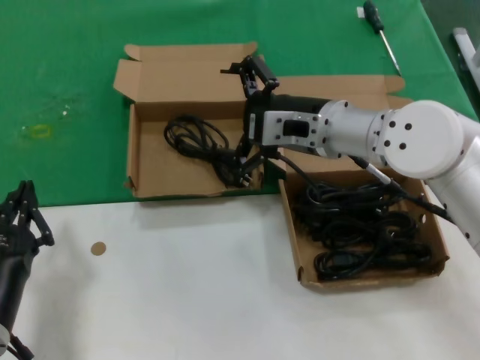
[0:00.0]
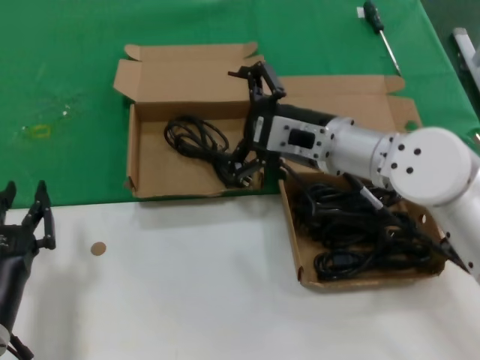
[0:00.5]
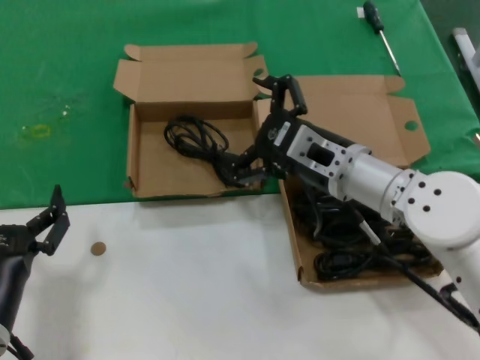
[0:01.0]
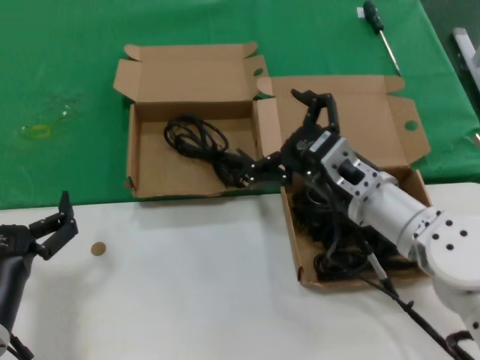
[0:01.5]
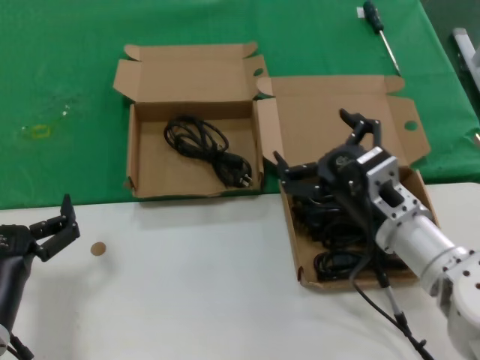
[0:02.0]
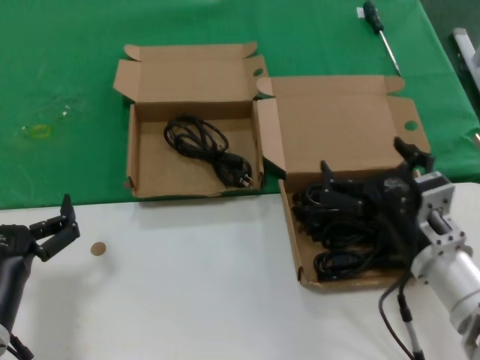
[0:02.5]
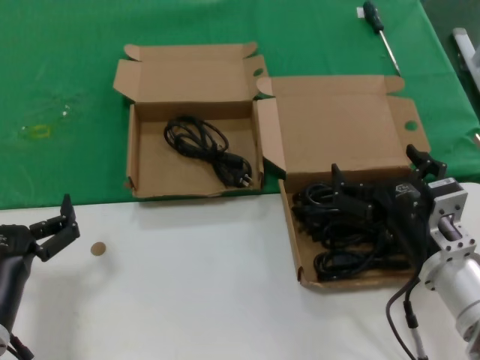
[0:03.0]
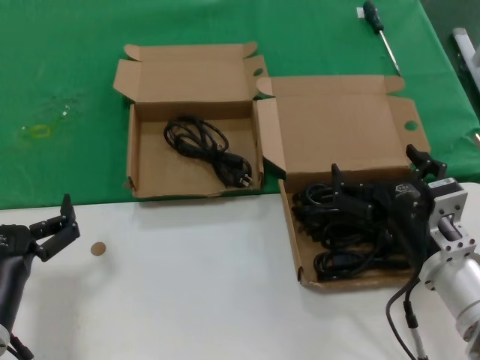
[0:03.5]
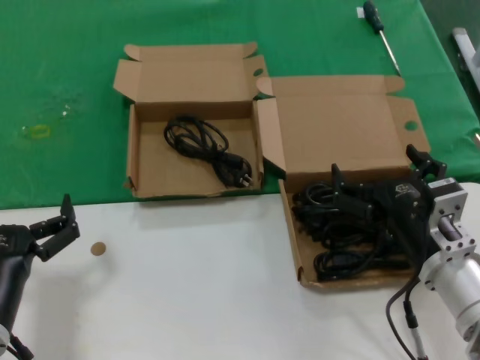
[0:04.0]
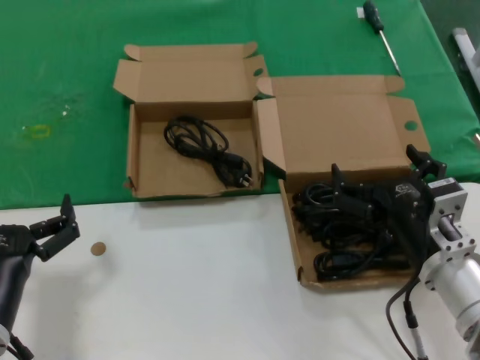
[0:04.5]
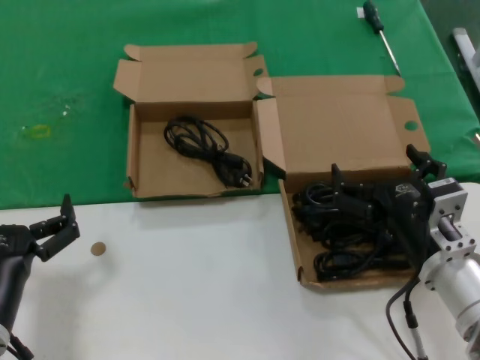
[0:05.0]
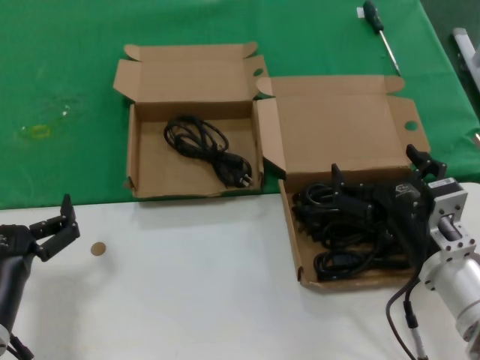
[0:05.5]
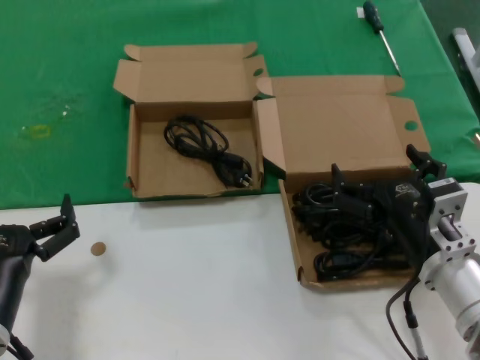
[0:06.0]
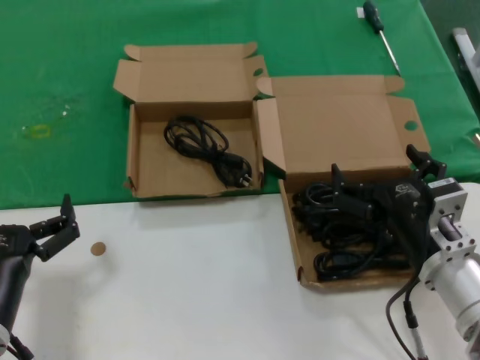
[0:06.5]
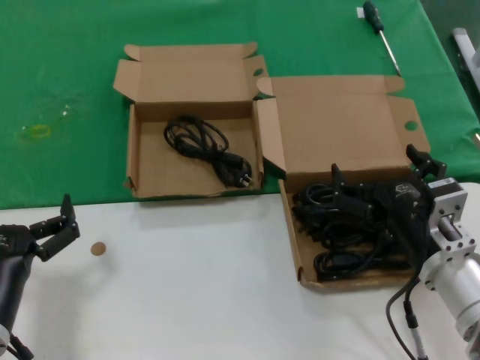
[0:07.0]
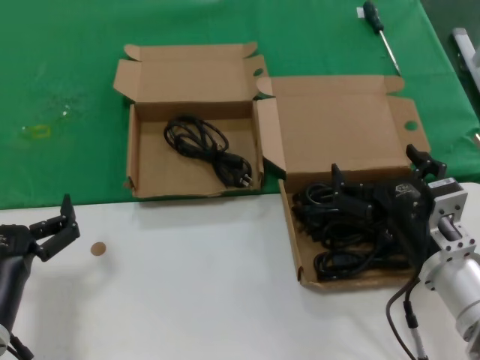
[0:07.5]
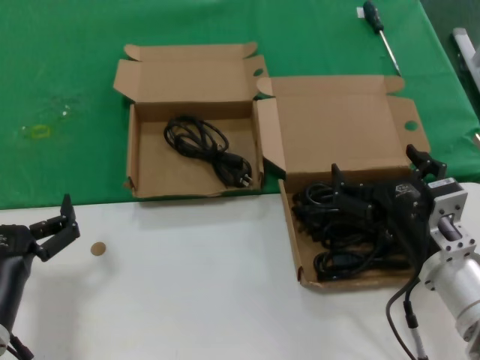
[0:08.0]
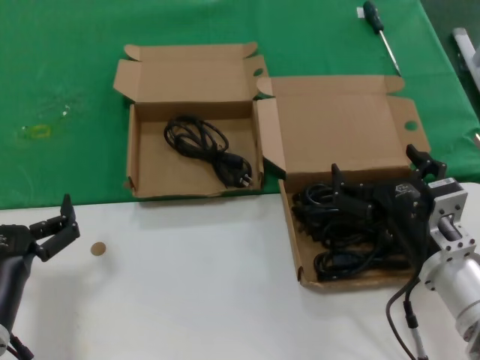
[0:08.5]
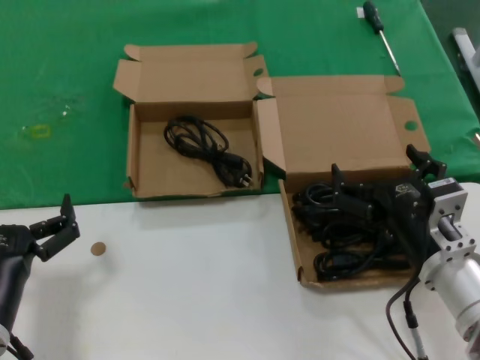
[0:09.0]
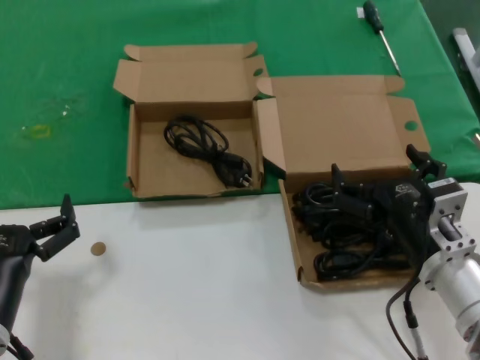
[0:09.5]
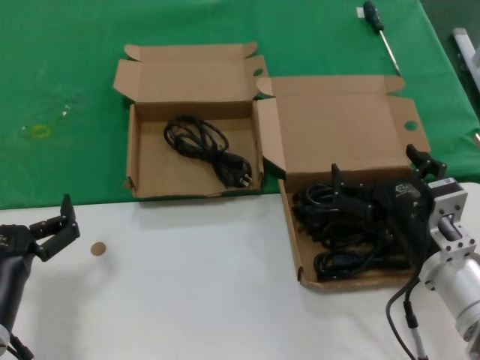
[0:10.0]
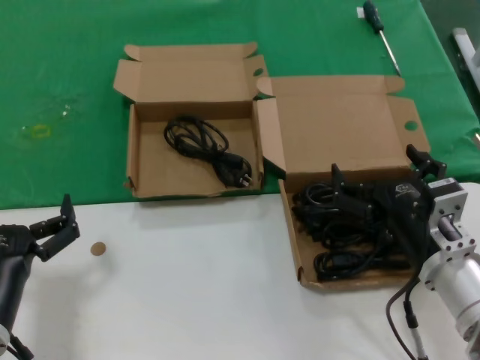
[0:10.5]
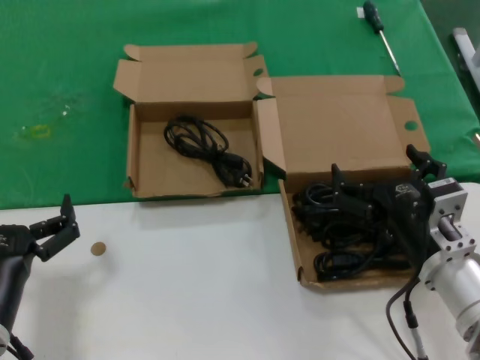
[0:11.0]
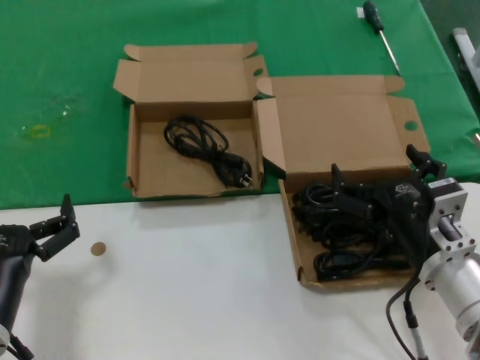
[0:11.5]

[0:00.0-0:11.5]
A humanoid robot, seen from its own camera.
Task of the whole recording: take the parts from the box containing them and put them into an empty box.
0:00.0 to 0:02.0: The right hand travels downward, backward and to the right by some 15 cm.
0:02.0 to 0:04.0: The right hand shifts some 5 cm backward.
0:04.0 to 0:11.5: The two hands keep their place.
